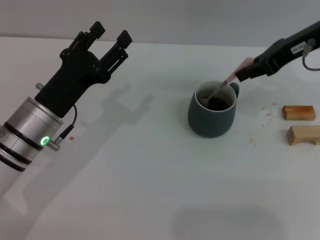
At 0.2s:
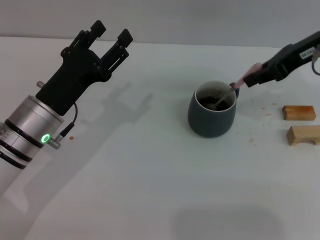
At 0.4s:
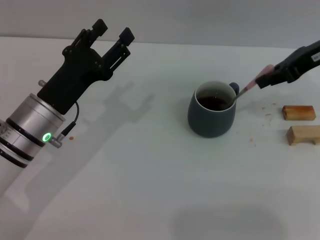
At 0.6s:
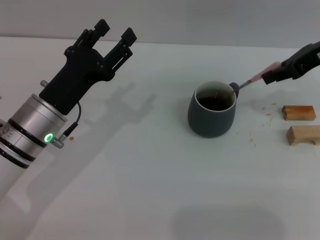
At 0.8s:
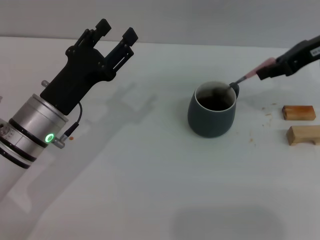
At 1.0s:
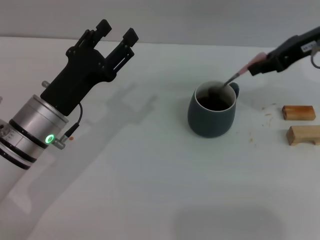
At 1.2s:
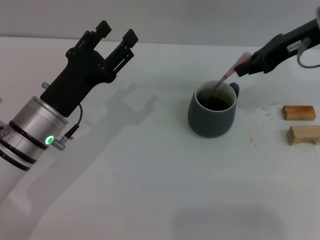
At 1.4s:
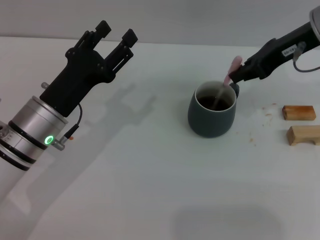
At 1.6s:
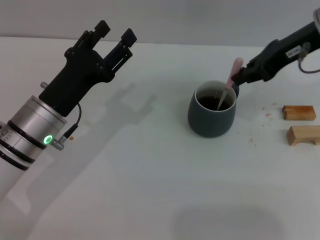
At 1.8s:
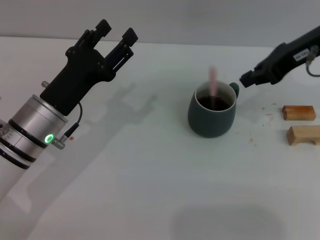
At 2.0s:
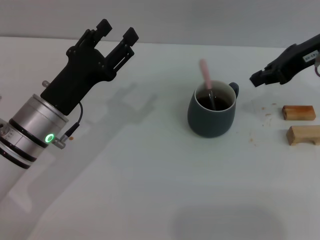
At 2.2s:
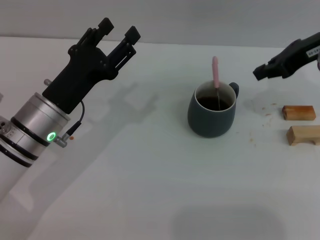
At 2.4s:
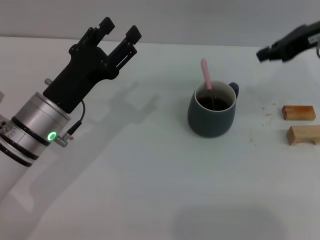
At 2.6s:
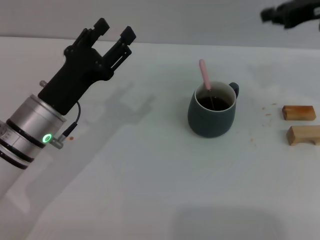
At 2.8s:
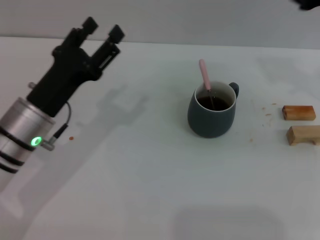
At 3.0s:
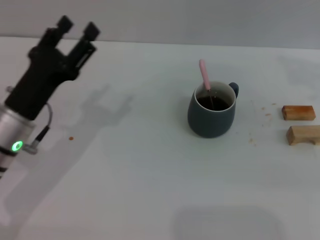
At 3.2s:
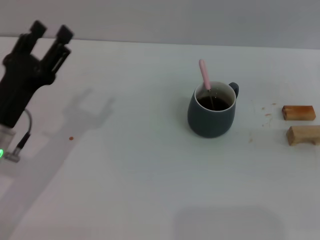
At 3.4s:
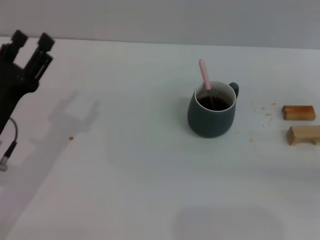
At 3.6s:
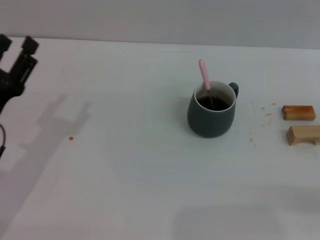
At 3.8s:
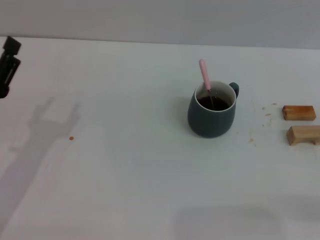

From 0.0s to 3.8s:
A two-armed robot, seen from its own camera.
Task of the whole recording: Move the grey cup to the center, lift the pink spoon, stir it three times in the cup, and put the spoon into the cup.
Step, from 0.0s to 2.0s: Stir the coffee in the cup with the right gripper.
From 0.0s to 1.2s: The grippers stay close to where they were, moving slightly.
From 2.6s to 3.8s: The left gripper shifts approximately 10 cm to the left and backward, while the right gripper travels backward, downward and to the right by some 30 cm.
